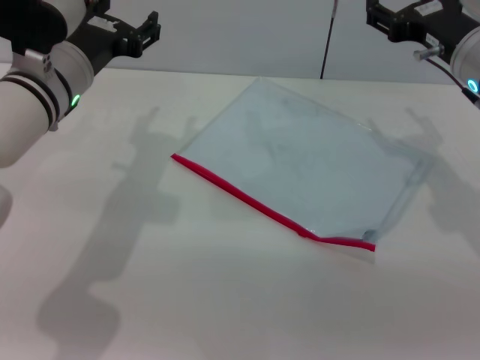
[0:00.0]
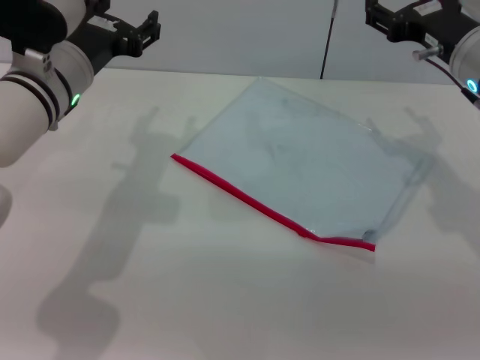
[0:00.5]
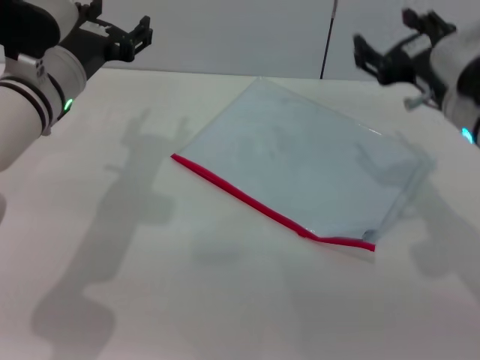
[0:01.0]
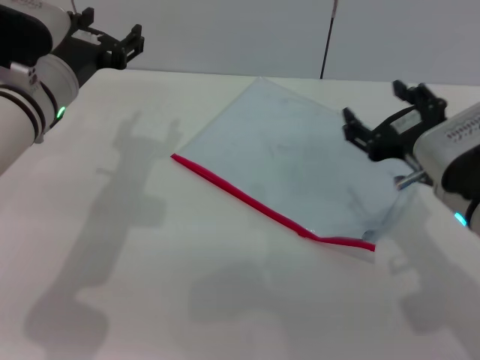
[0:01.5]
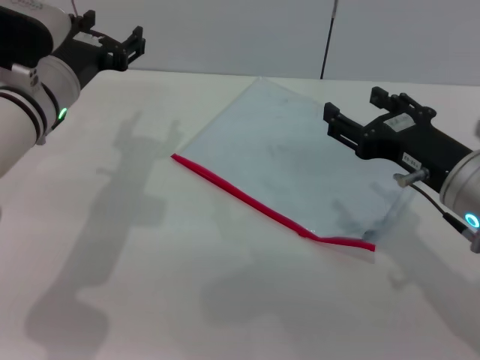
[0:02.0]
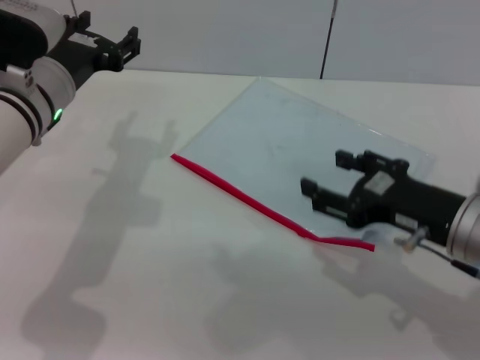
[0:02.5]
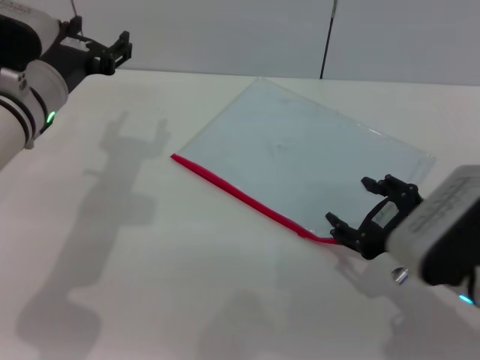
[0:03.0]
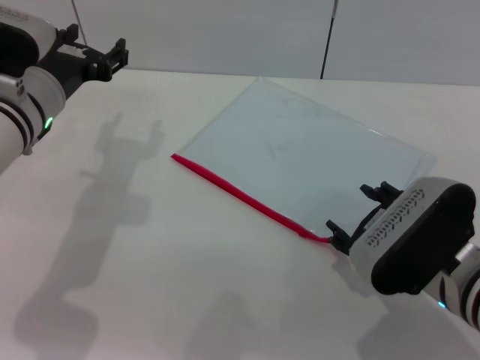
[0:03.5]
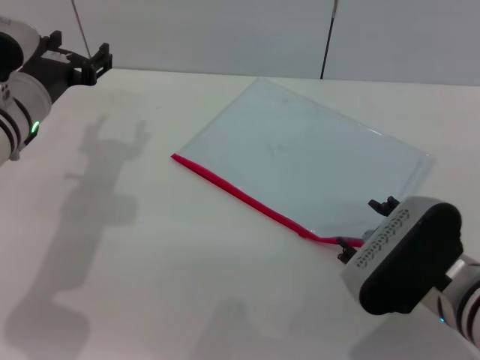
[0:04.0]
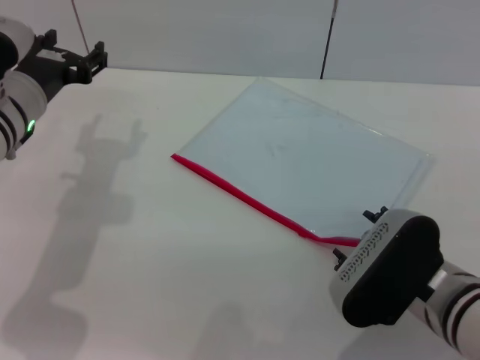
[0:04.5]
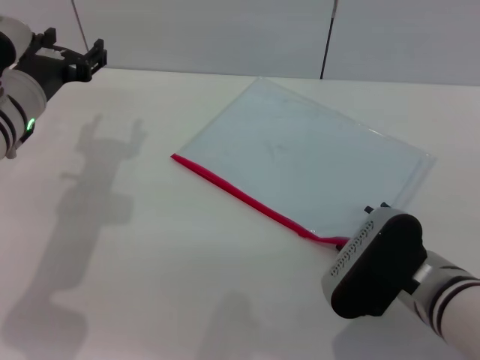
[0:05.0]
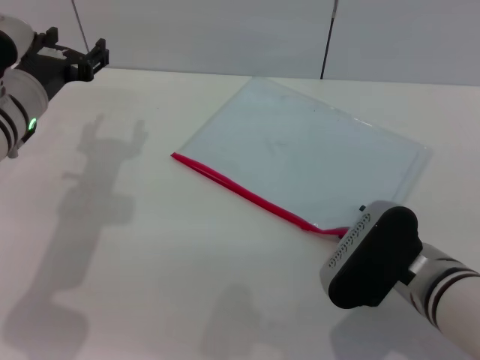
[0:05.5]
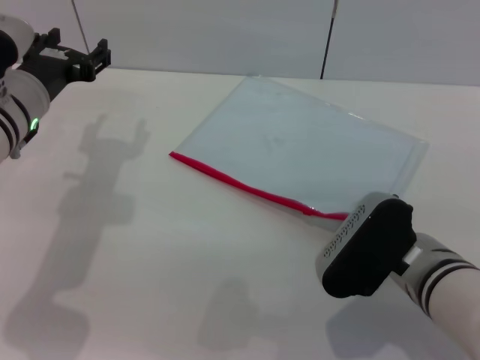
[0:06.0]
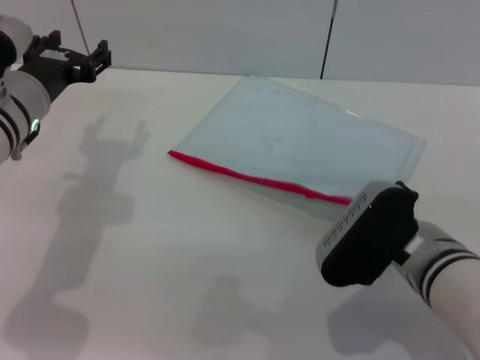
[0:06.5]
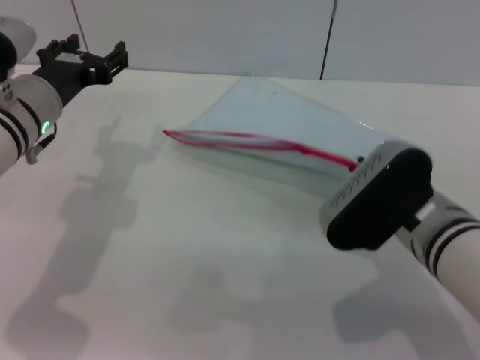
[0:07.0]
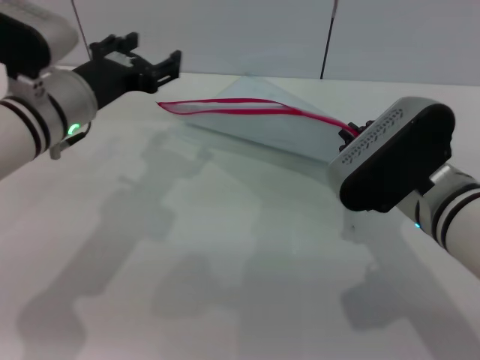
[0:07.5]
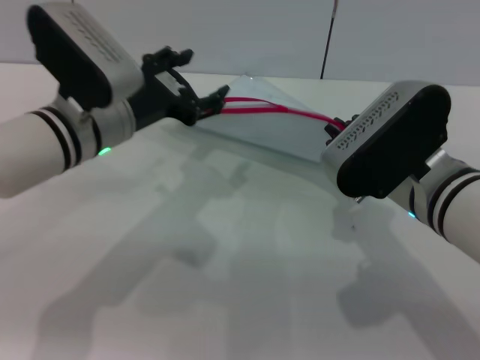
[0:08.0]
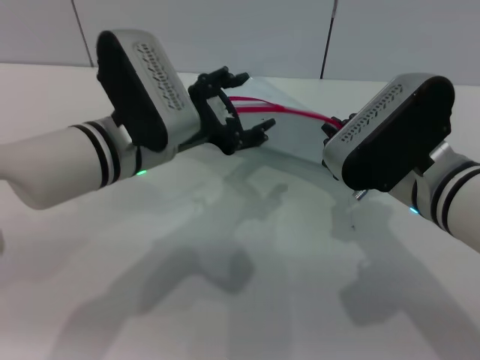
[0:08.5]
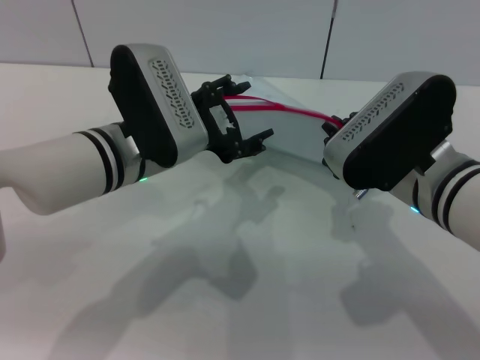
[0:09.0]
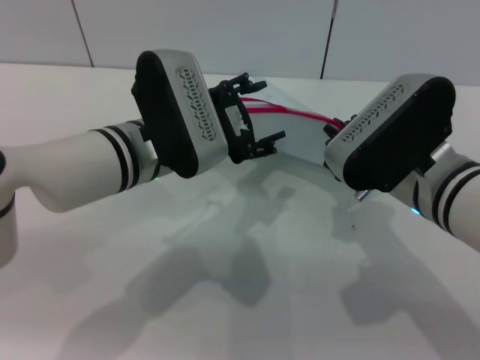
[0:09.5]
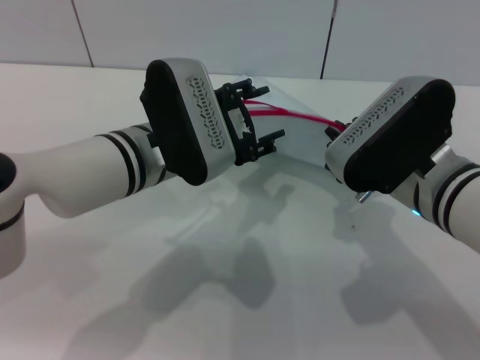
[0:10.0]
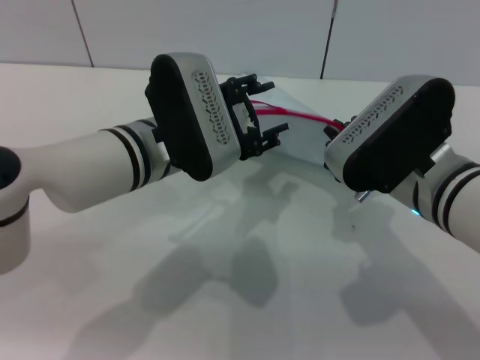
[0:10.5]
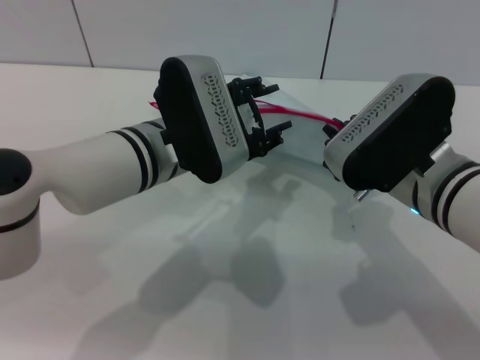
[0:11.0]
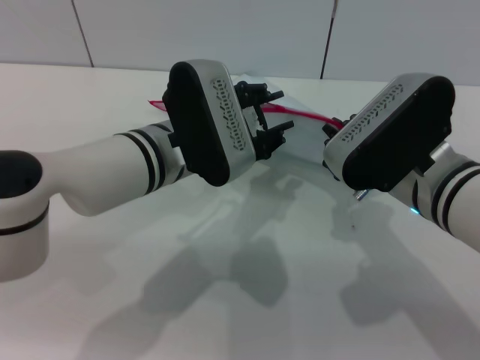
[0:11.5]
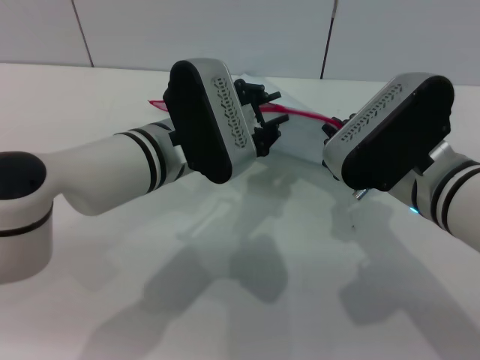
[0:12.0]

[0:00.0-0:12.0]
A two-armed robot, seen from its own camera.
Step, 0:00.0 to 0:07.0: Pick up the transparent plastic bag with the right gripper.
0:00.0 to 0:02.0: The right gripper shifts approximately 15 cm backward.
0:02.0 to 0:04.0: The right gripper is displaced backward by some 5 cm.
0:04.0 to 0:06.0: The right gripper closes up.
0:06.0 to 0:08.0: The right gripper goes some 5 cm upward, and closes; the left gripper shifts about 5 cm to the right.
0:08.0 to 0:10.0: The left gripper heads to the right, covering approximately 5 cm.
0:10.0 to 0:12.0: The left gripper closes up.

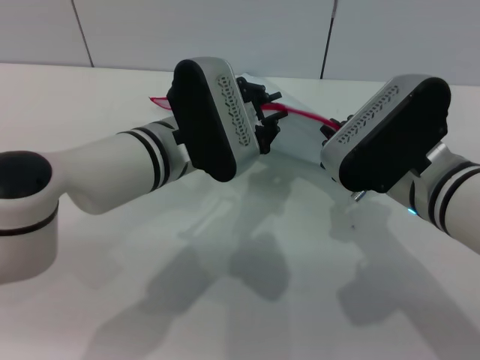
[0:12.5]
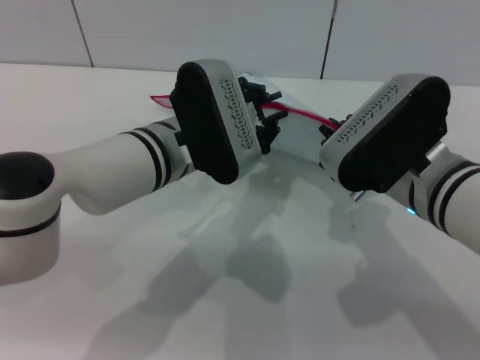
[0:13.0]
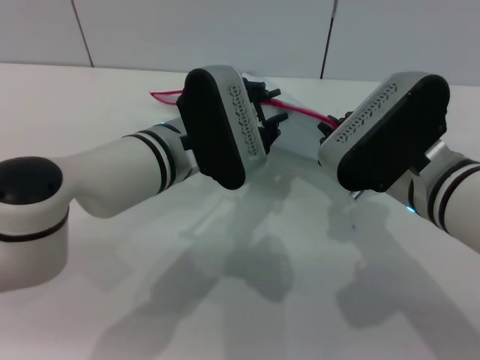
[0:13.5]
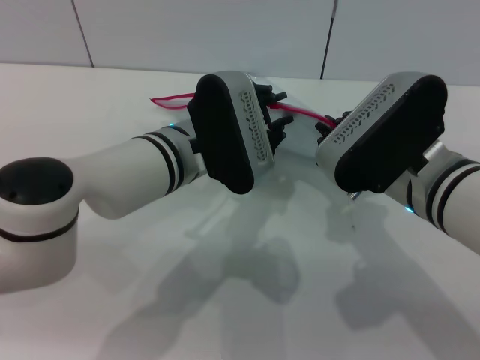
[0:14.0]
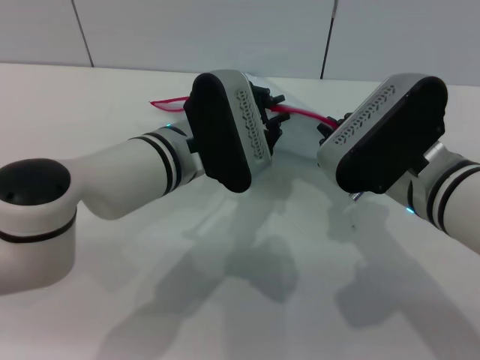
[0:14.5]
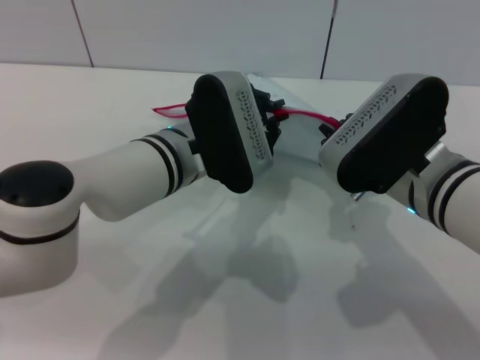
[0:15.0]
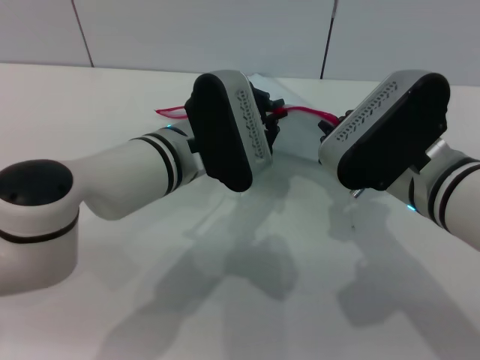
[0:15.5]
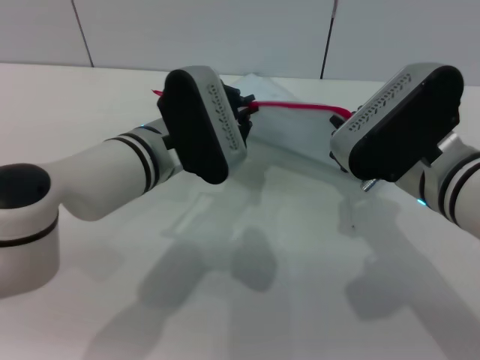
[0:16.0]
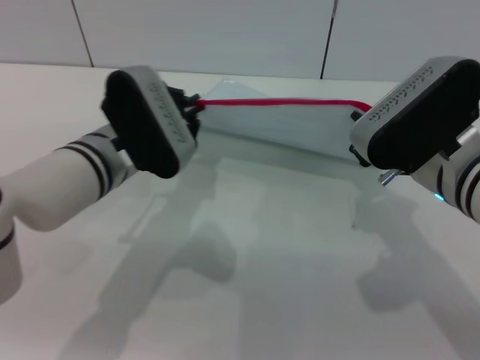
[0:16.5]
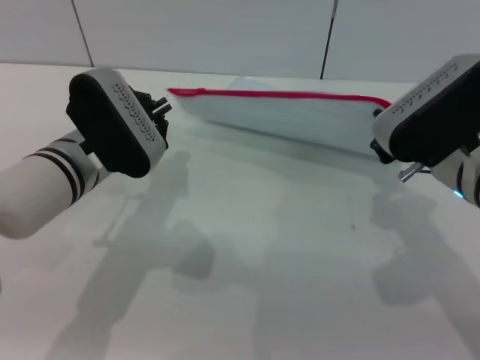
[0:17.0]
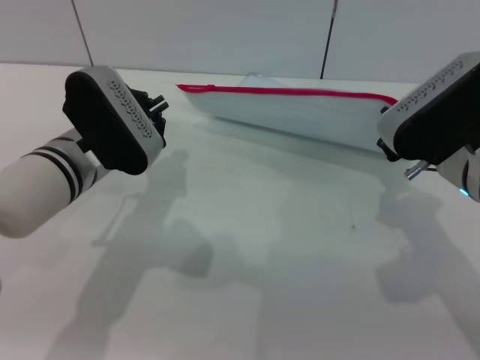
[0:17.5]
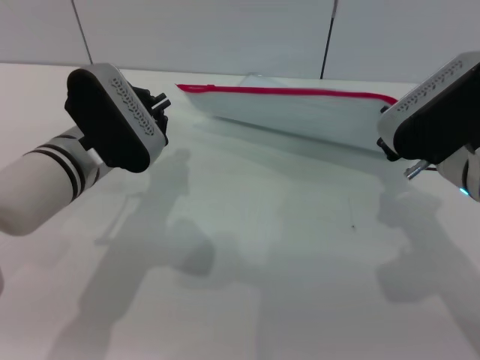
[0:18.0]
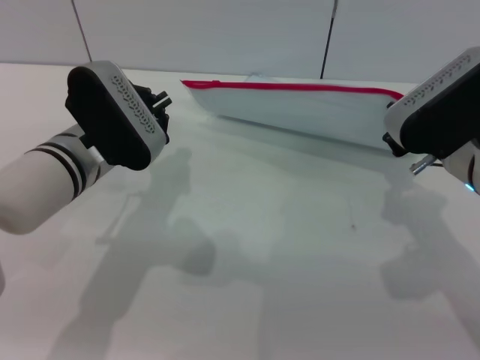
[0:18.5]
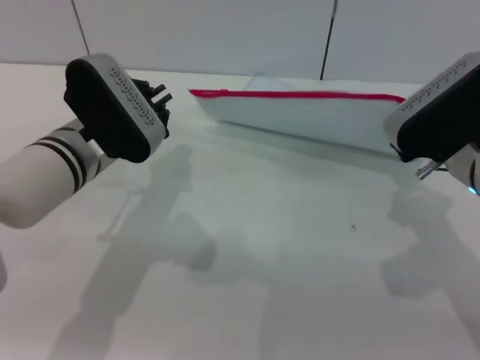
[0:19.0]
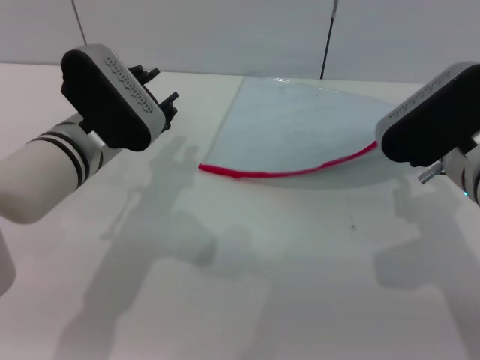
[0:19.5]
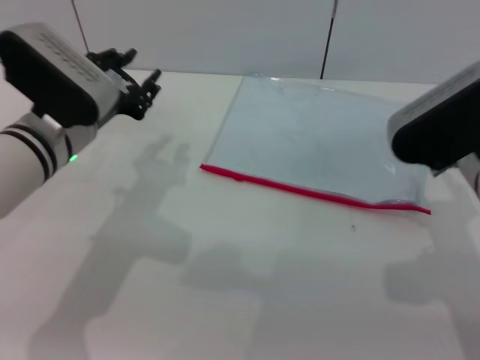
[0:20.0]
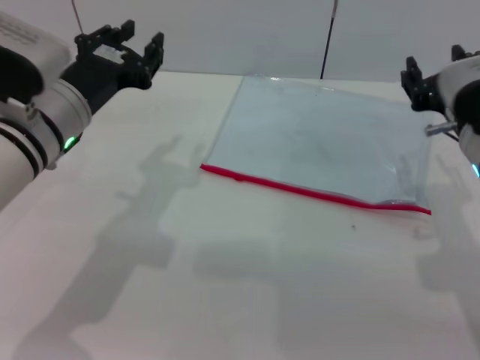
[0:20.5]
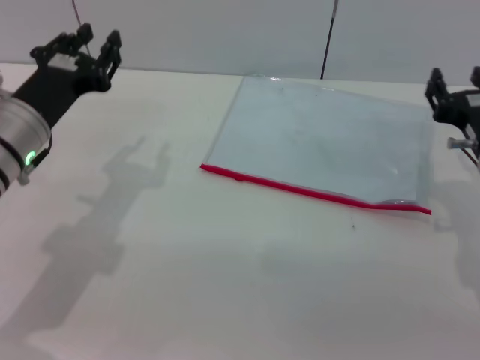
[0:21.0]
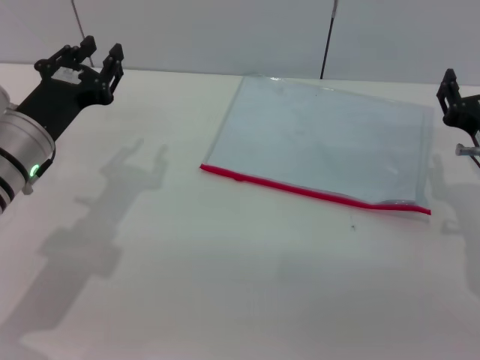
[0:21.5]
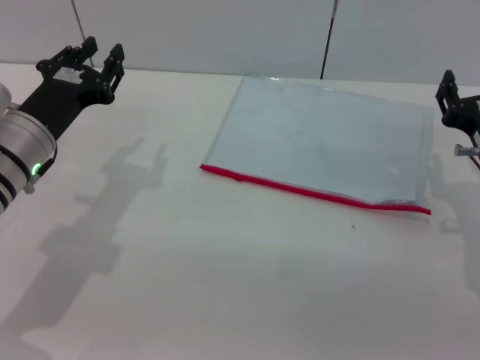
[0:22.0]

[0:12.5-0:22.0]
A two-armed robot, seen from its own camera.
Step, 0:12.5 to 0:17.0: Pulling up the zipper on the transparent plastic bag with the left gripper to close it.
Step, 0:17.5 to 0:20.0: Place the transparent plastic bag.
0:12.5 to 0:14.5: The grippers move only a little.
0:14.5 to 0:16.5: The left gripper travels to the left by about 5 cm.
0:18.0 to 0:20.0: The right gripper opens. Meanwhile the left gripper opens its fingers.
0:20.0 to 0:22.0: The right gripper moves downward and to the right, about 10 cm. The left gripper moves about 5 cm.

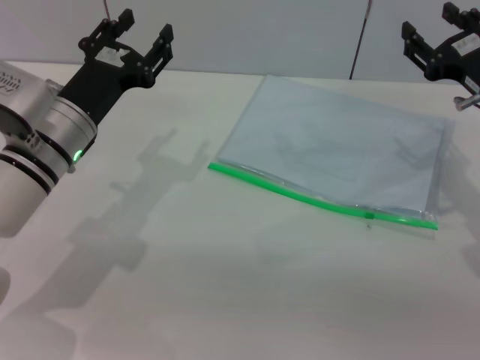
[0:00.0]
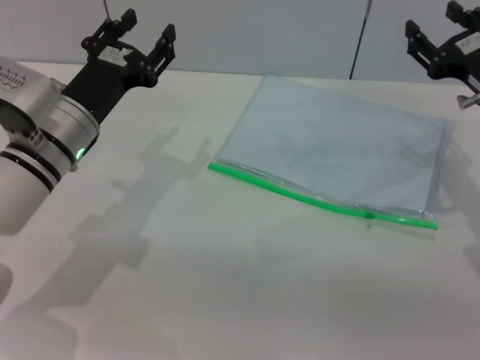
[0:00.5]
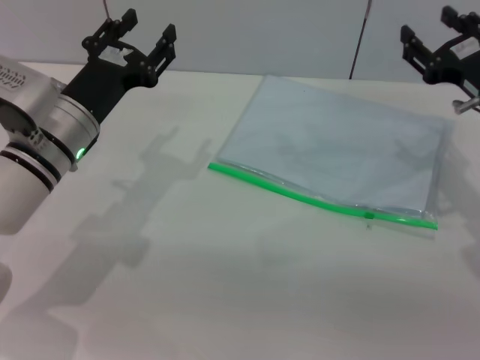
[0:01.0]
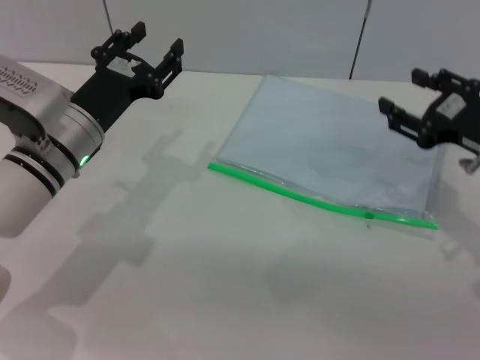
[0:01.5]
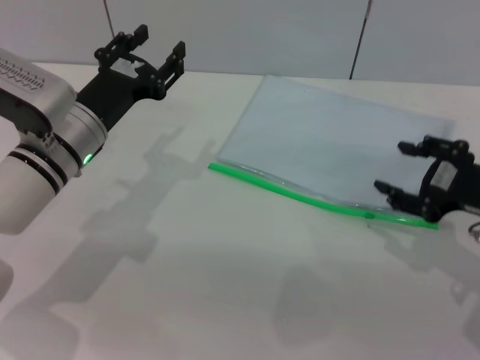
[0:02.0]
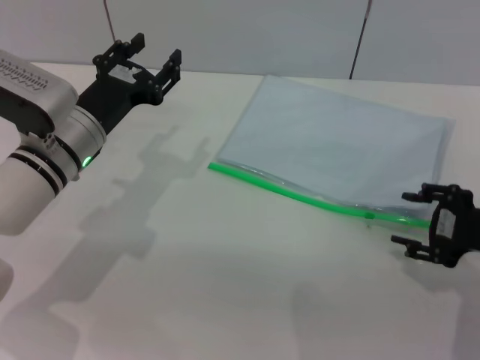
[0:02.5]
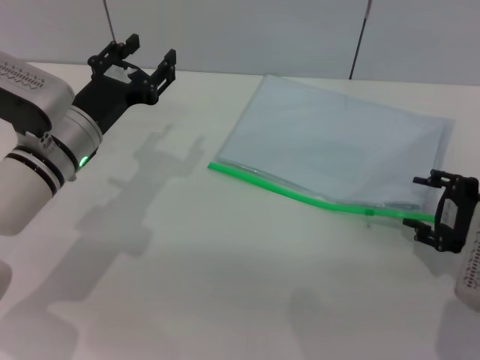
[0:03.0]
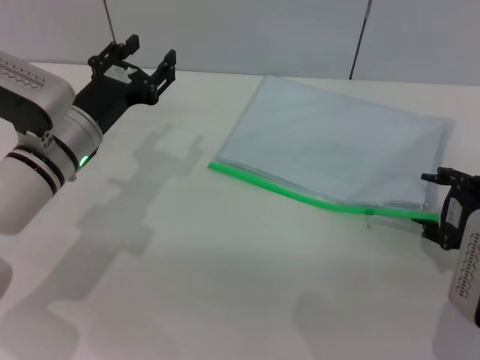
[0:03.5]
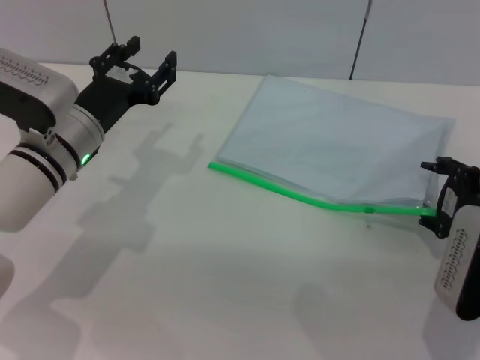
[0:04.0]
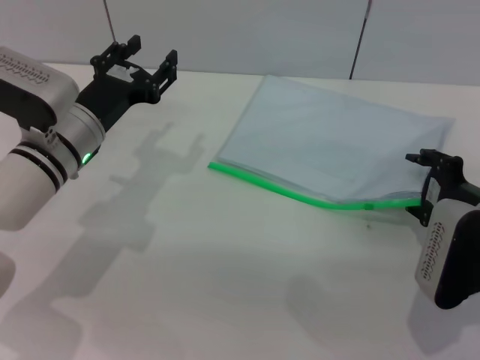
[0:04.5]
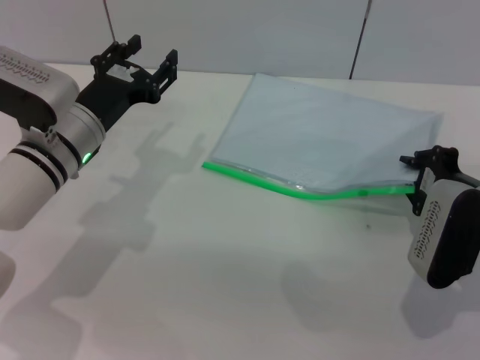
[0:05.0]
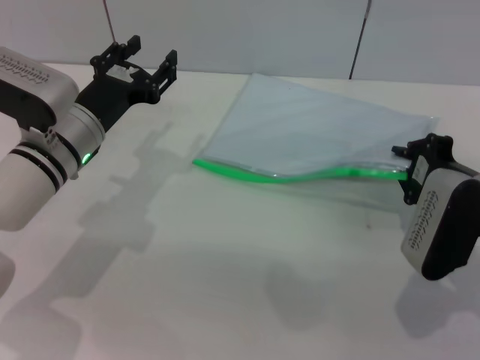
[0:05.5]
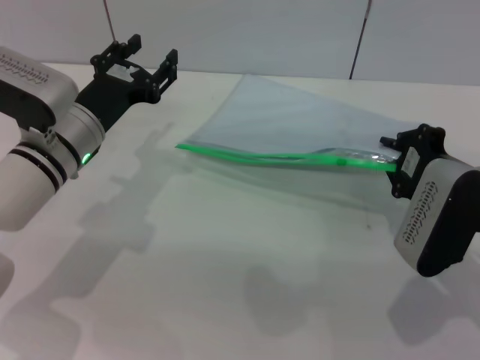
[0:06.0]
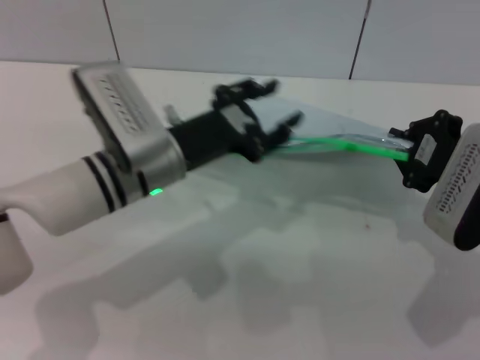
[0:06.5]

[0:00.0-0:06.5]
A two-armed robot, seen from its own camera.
Step, 0:00.0 to 0:06.0: Pick up the transparent plastic bag with the right gripper.
0:00.0 to 0:02.0: The right gripper is displaced backward by about 5 cm.
0:02.0 to 0:04.5: The right gripper travels downward by about 5 cm.
0:04.5 to 0:06.5: The right gripper heads upward, covering about 5 cm, and closes up. The left gripper travels to the right by about 10 cm.
